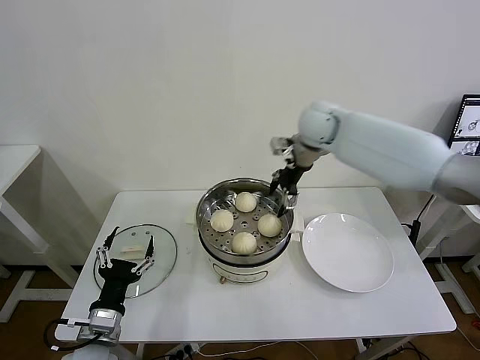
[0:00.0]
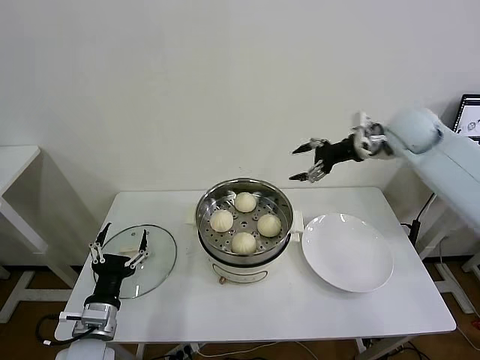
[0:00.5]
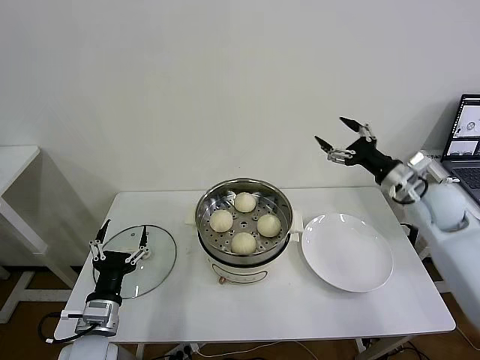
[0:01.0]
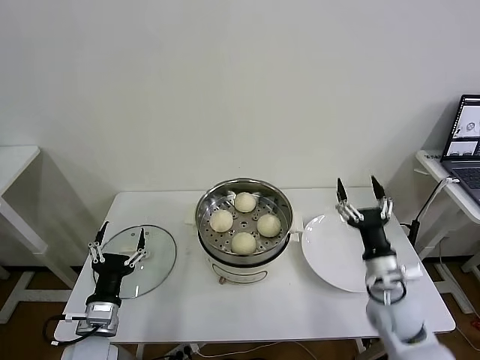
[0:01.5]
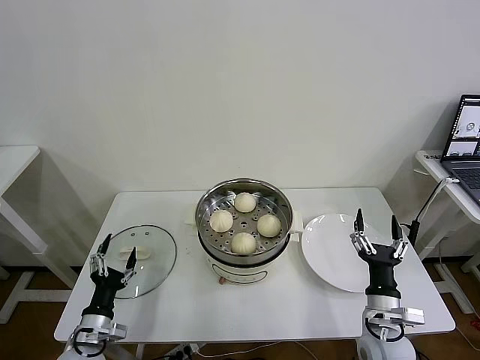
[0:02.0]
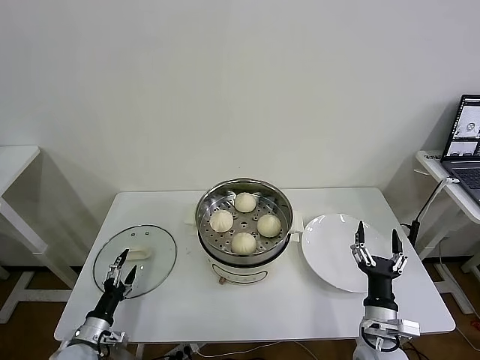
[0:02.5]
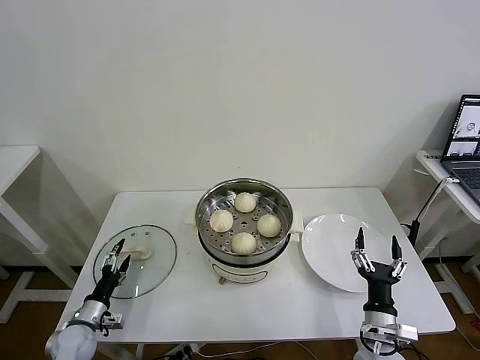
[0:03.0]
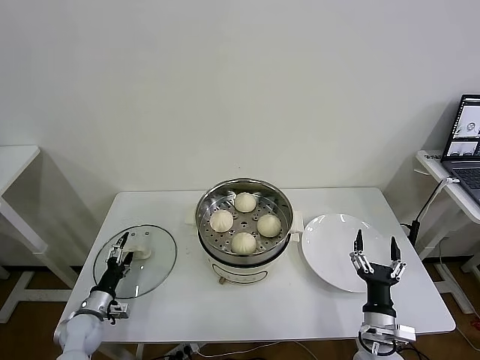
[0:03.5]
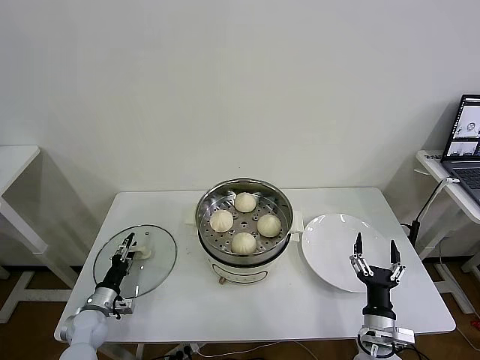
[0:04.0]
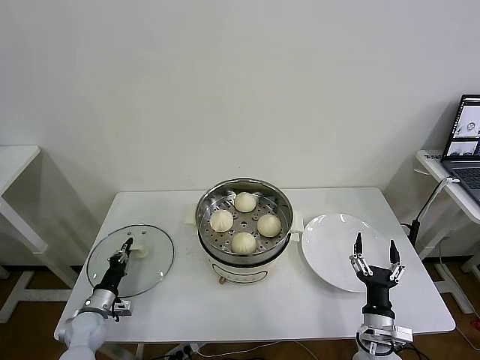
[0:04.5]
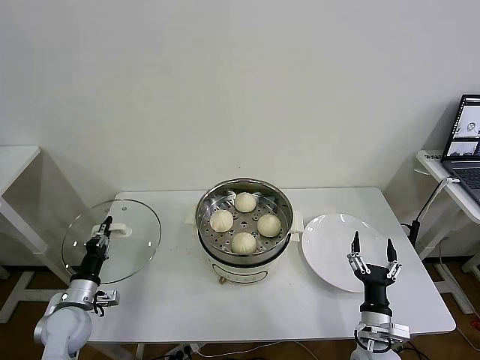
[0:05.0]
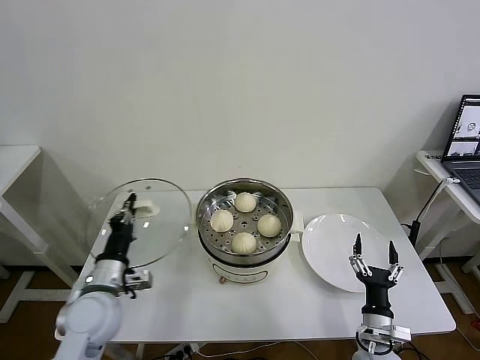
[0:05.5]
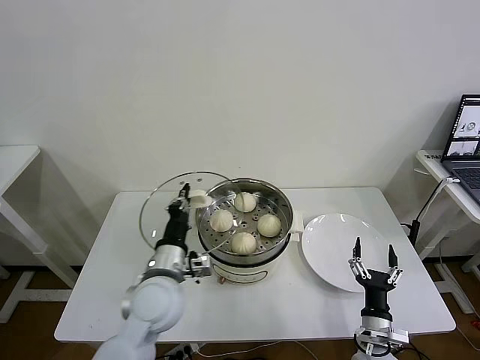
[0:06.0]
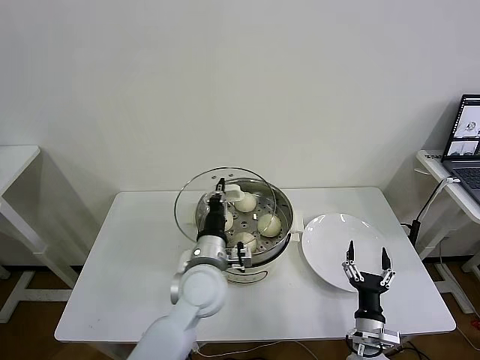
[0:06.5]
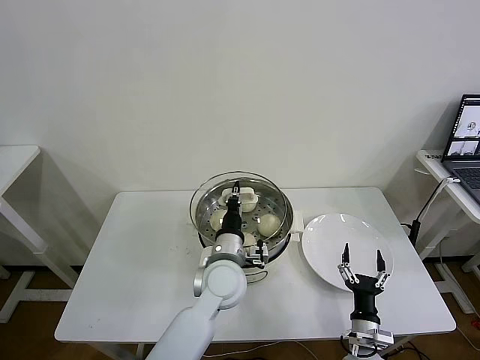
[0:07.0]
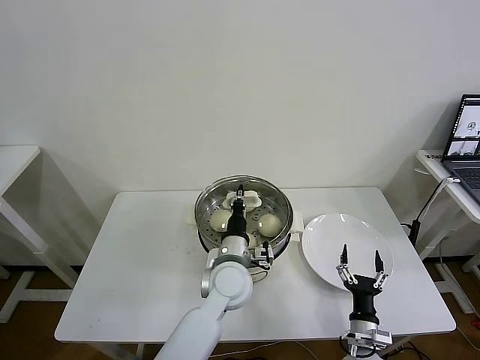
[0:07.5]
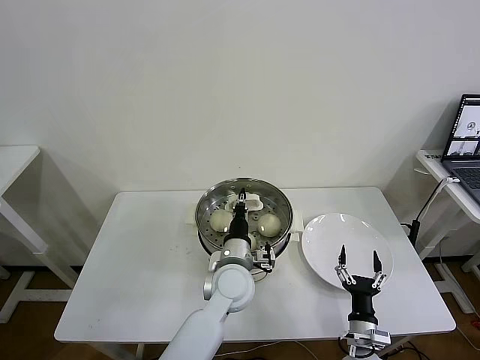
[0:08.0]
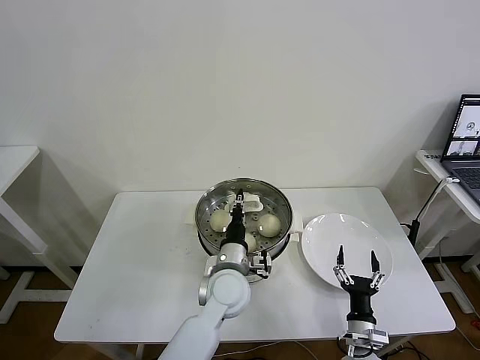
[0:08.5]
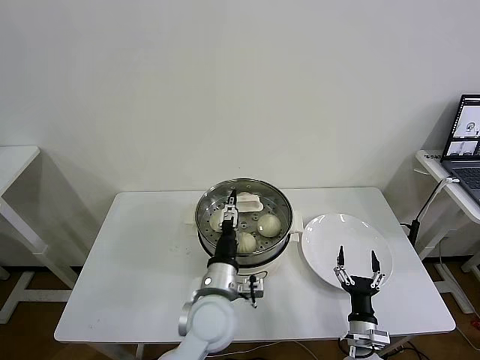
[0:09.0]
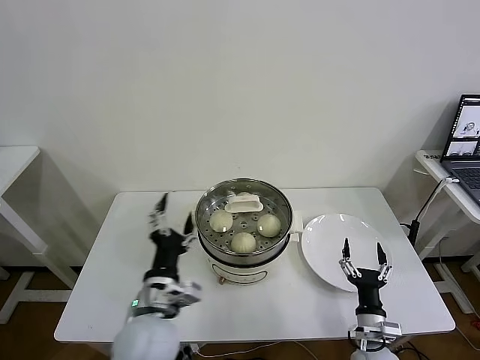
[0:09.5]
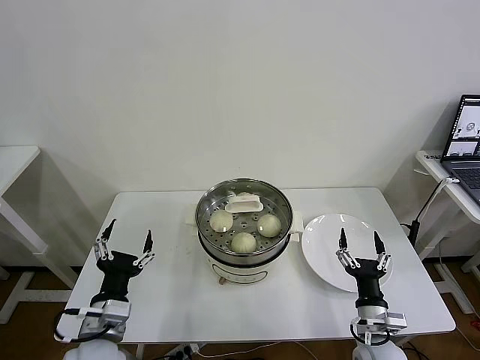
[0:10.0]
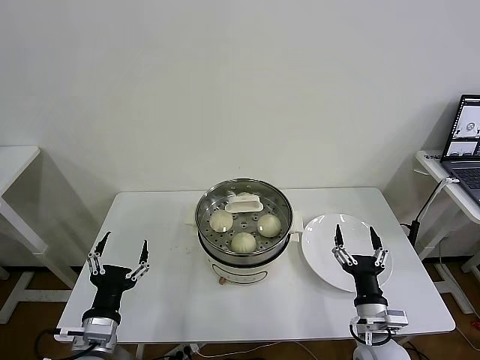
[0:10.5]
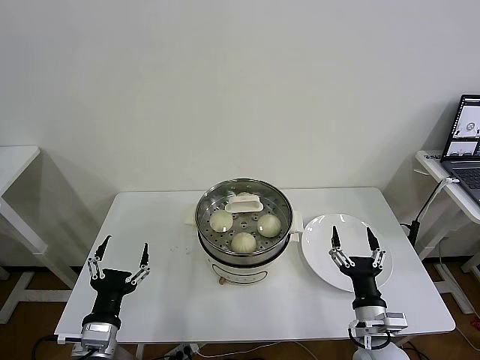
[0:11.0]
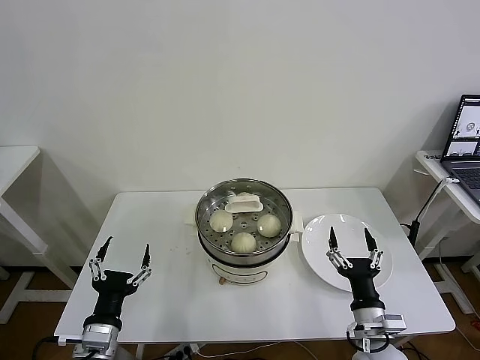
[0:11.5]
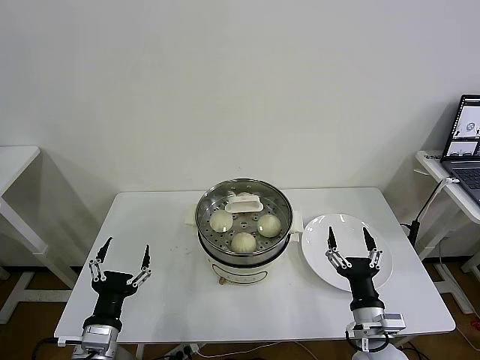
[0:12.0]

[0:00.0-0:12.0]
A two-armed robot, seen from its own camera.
Task of the whole recording: take steamed baozi put them in steamer then cover it.
Step, 0:00.0 to 0:04.5: Grasp the pot lid with left gripper.
Step, 0:05.0 to 0:08.5: Place the pot lid on the steamer with left gripper.
0:00.0 to 0:02.0: The left gripper shifts approximately 10 cm downward and to the left; the right gripper heads backward and downward, covering about 50 cm.
0:02.0 to 0:04.0: The right gripper is displaced downward by approximately 5 cm, while the left gripper goes approximately 15 cm forward, downward and to the left, and closes.
0:04.0 to 0:06.0: The left gripper heads to the right and upward, covering about 35 cm, and closes up.
0:06.0 to 0:08.0: The left gripper travels to the right by some 15 cm.
0:08.0 to 0:10.0: The right gripper shifts roughly 10 cm upward, while the left gripper heads to the left and backward, covering approximately 25 cm, and opens up.
0:10.0 to 0:12.0: The left gripper changes place by some 5 cm.
